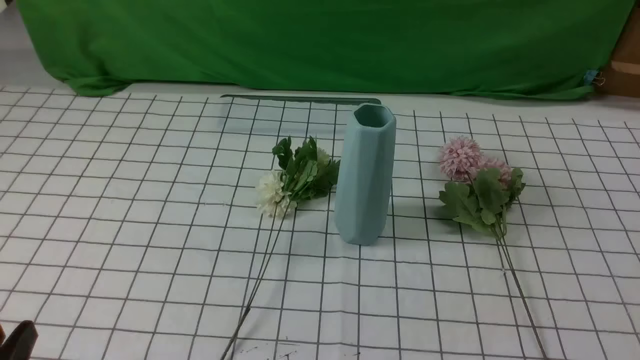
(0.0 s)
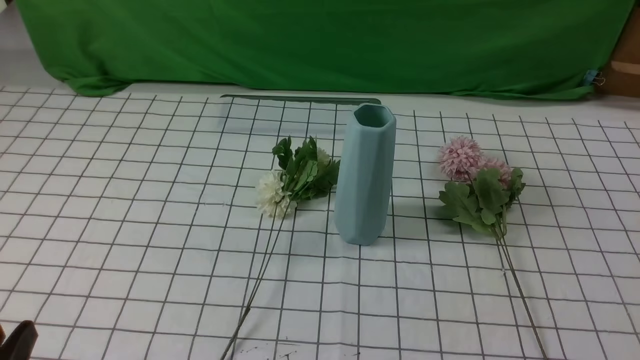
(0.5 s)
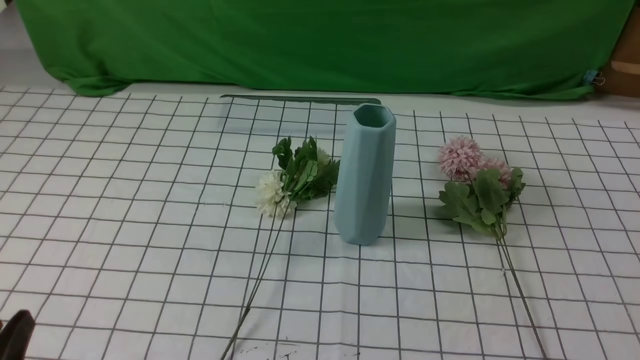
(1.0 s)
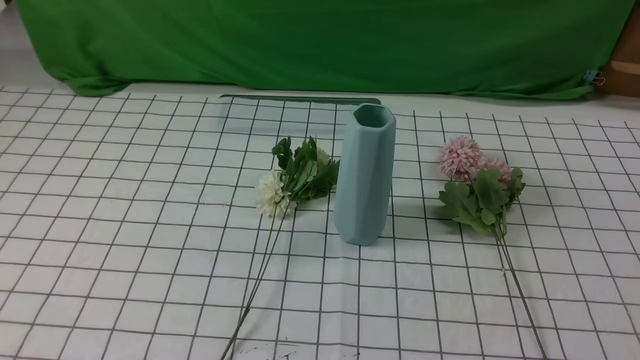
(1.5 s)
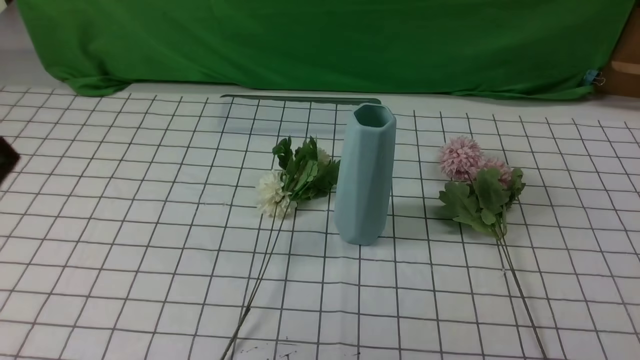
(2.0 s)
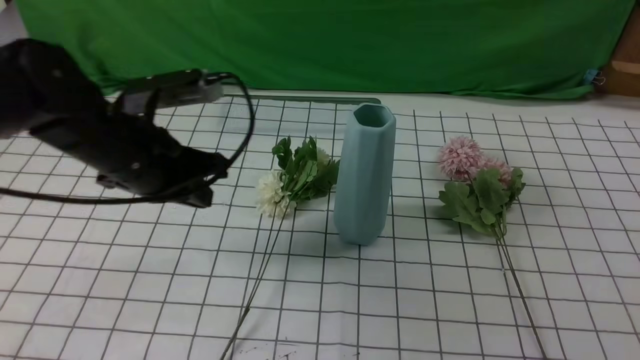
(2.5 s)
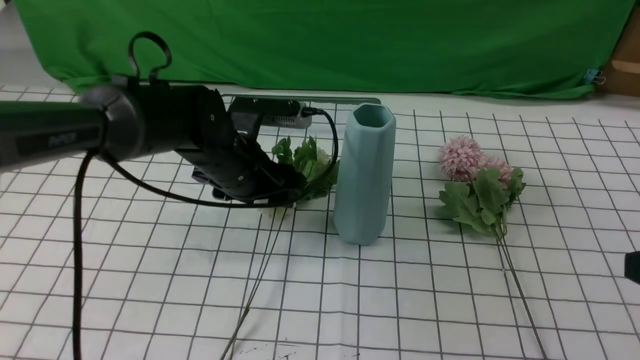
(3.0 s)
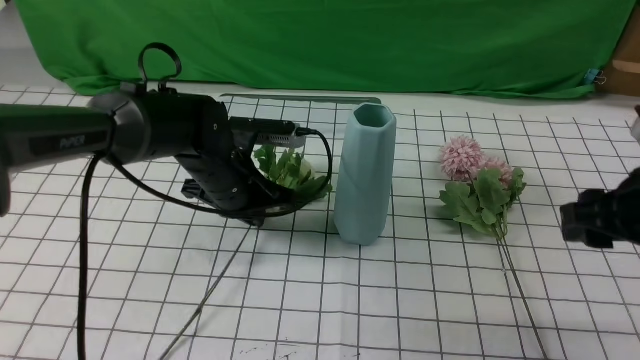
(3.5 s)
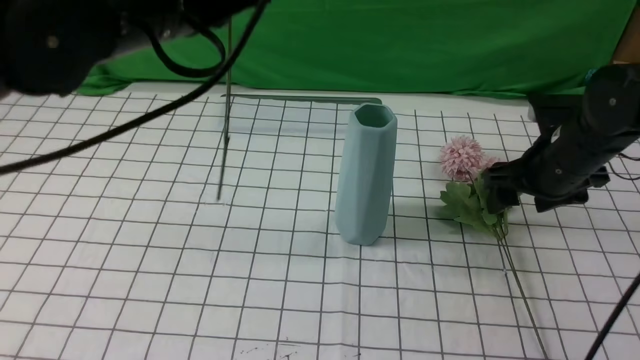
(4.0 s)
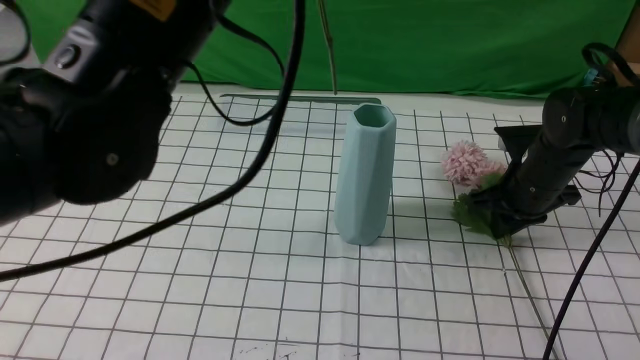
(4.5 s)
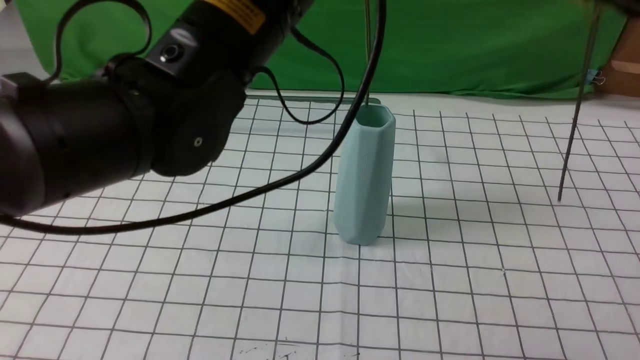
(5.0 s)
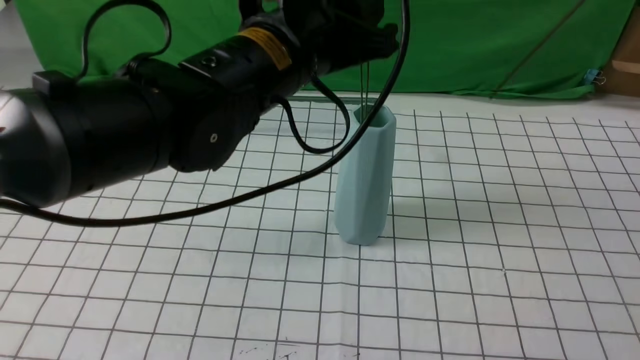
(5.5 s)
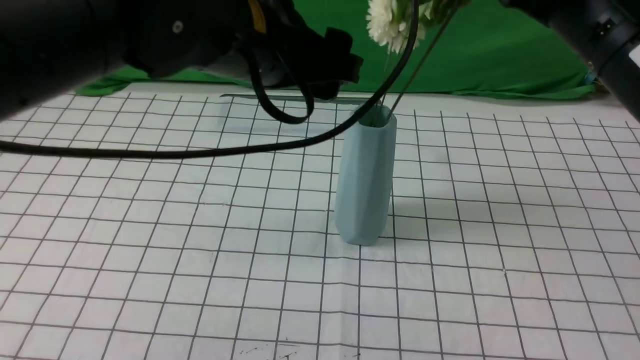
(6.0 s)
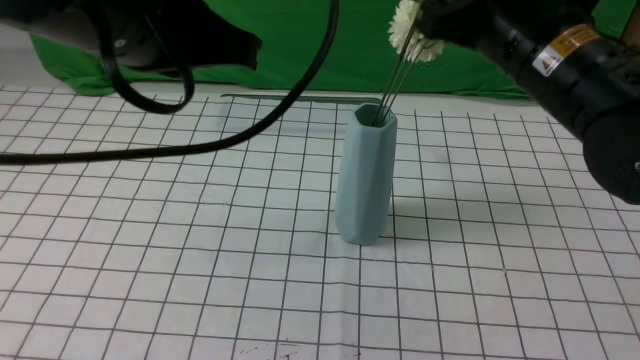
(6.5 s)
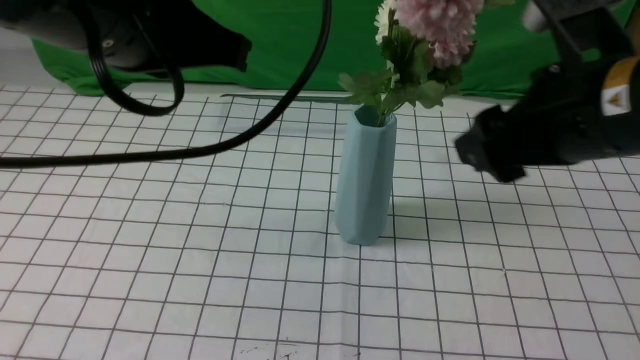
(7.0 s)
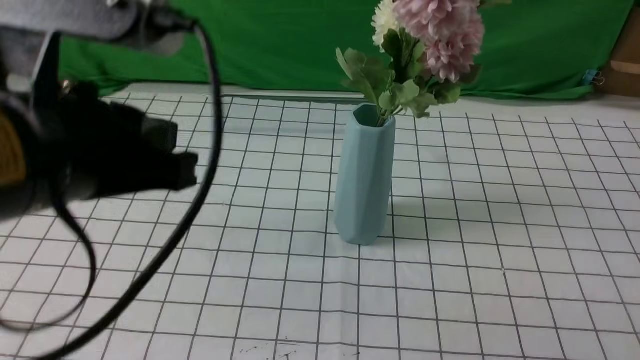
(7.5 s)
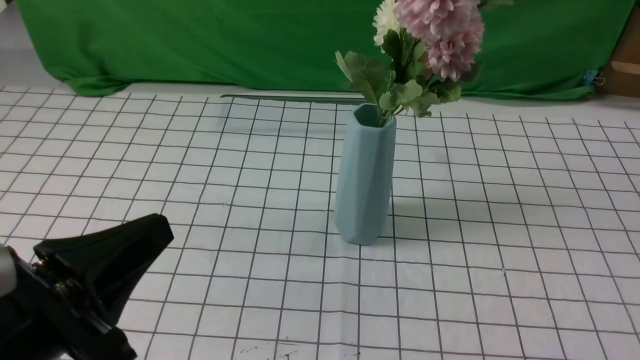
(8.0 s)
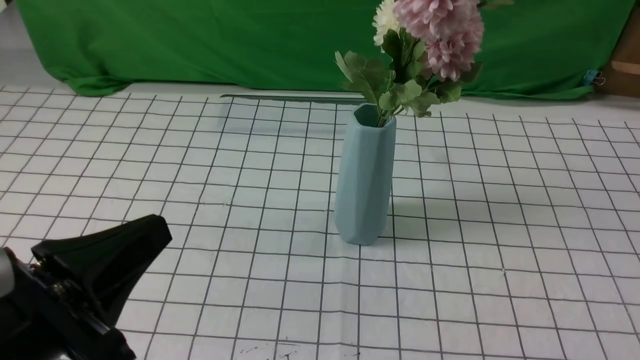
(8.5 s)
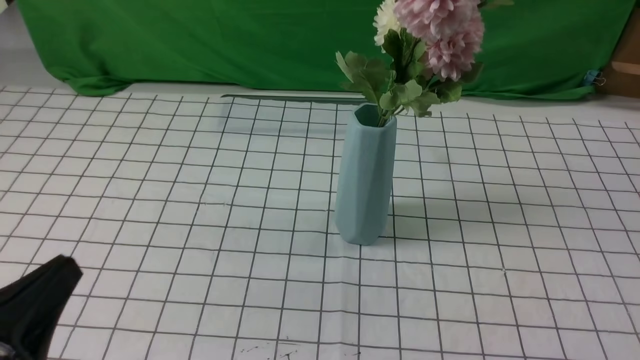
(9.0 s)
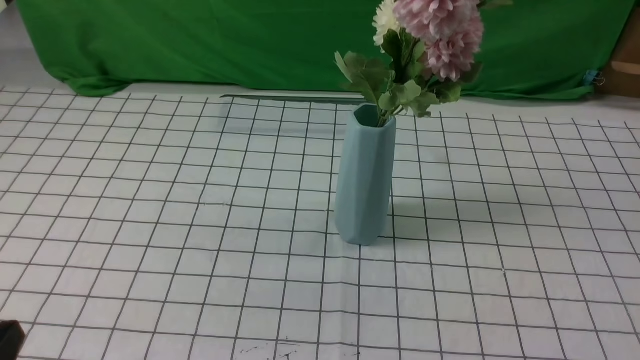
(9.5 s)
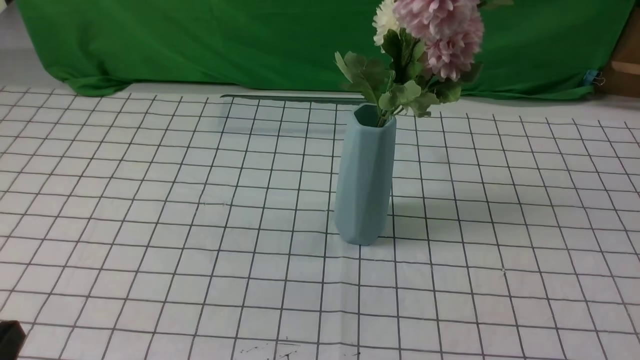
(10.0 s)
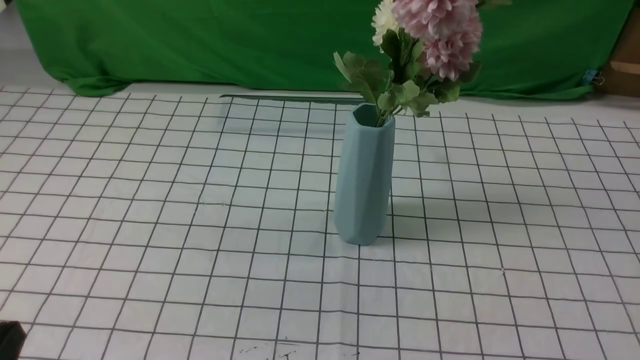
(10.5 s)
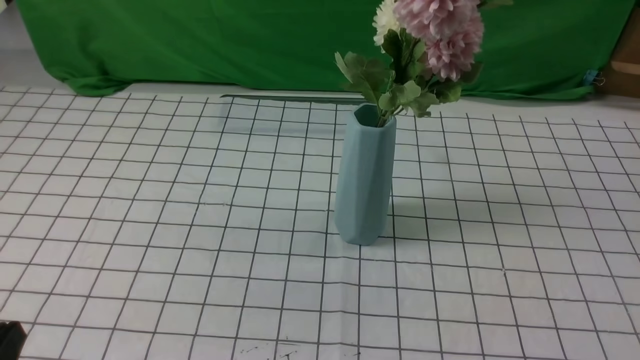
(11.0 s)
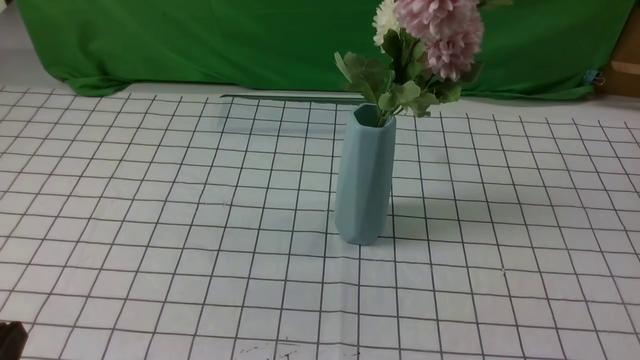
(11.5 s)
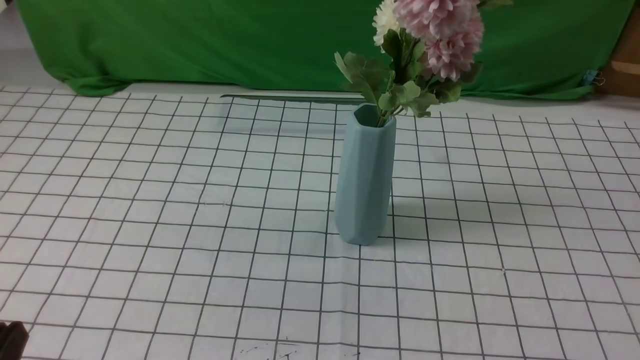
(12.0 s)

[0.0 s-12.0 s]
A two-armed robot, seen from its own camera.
Task of the whole recording: insert the flowers into the vase on the table with the white tablecloth.
Step, 0.0 to 6.5 s: Put the flowers in the vase with both hands.
0.0 to 2.0 s: The left gripper goes approximately 15 cm upward and forward, and closes up.
2.0 to 4.0 s: The right gripper goes about 30 cm forward, and opens. Meanwhile the left gripper goes about 20 cm forward and to the right, and opens, then closes once more.
4.0 to 6.0 s: The right gripper moves upward and backward, approximately 20 cm, and closes. The left gripper shifts roughly 5 cm to the right, and opens its fingers.
6.0 to 8.0 s: The right gripper travels backward and to the right by approximately 25 cm, and opens and closes again, while the left gripper is displaced backward, to the left and downward by approximately 25 cm, and closes up.
8.0 to 10.0 s: The left gripper shifts about 10 cm downward and to the left.
